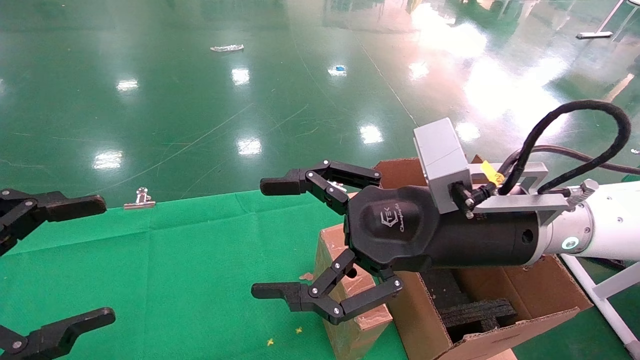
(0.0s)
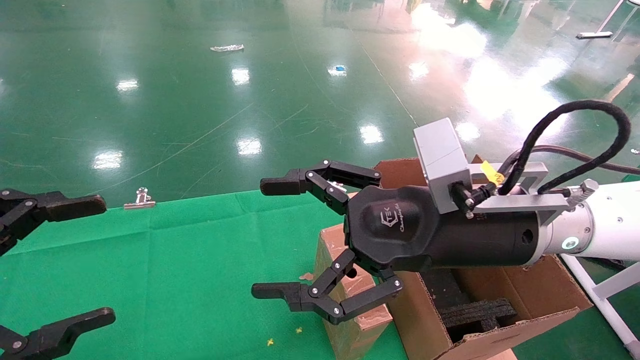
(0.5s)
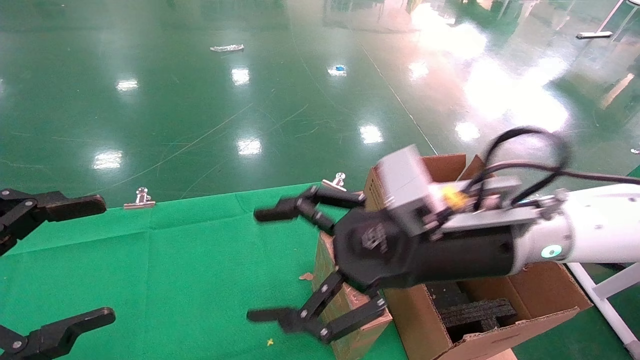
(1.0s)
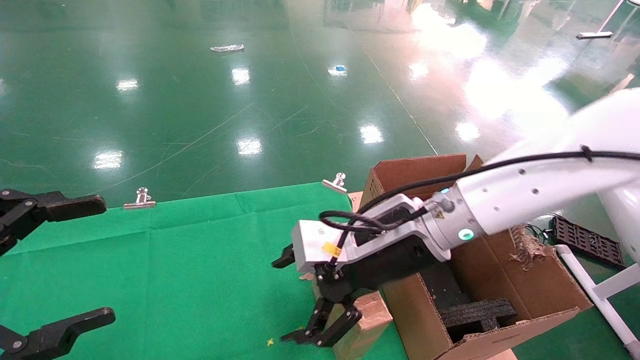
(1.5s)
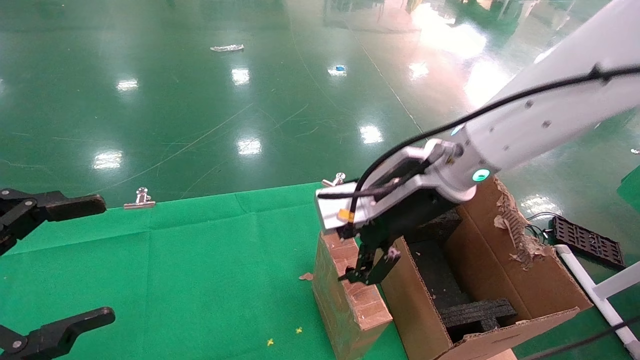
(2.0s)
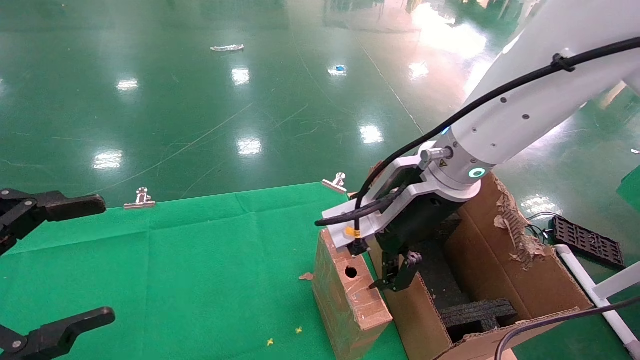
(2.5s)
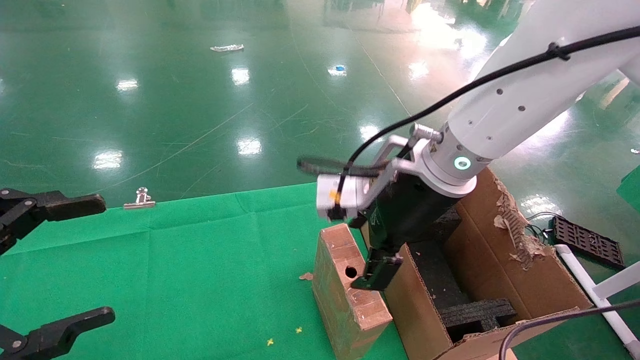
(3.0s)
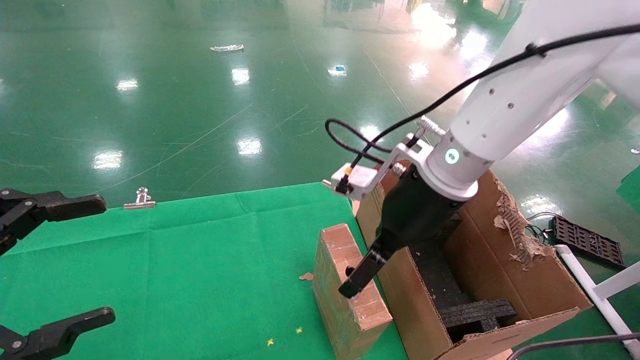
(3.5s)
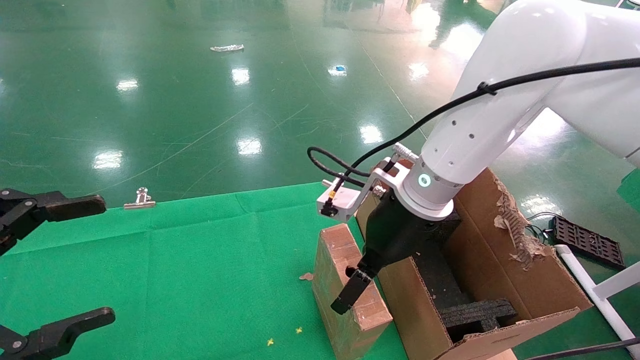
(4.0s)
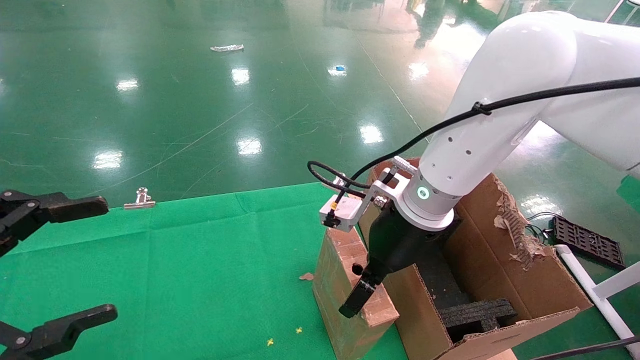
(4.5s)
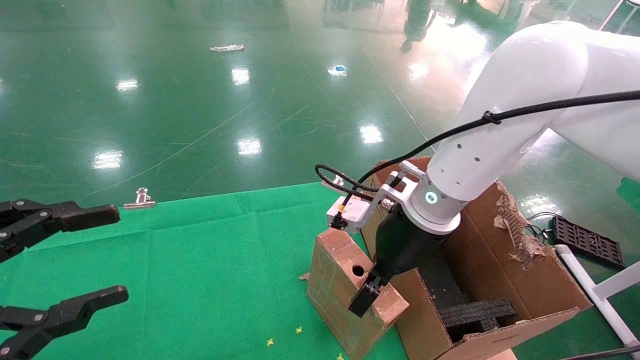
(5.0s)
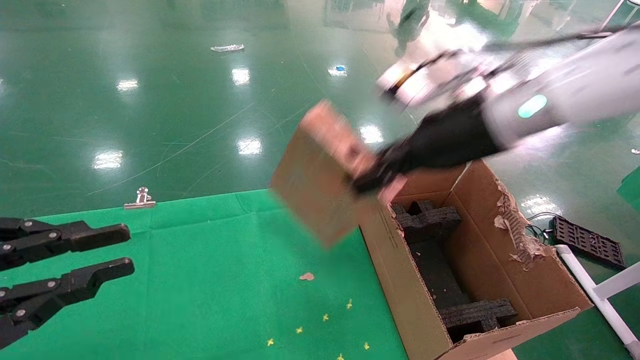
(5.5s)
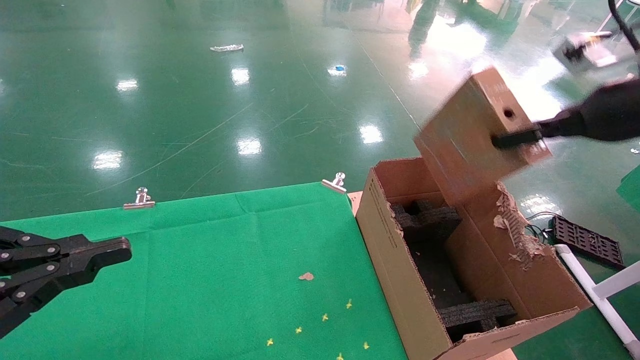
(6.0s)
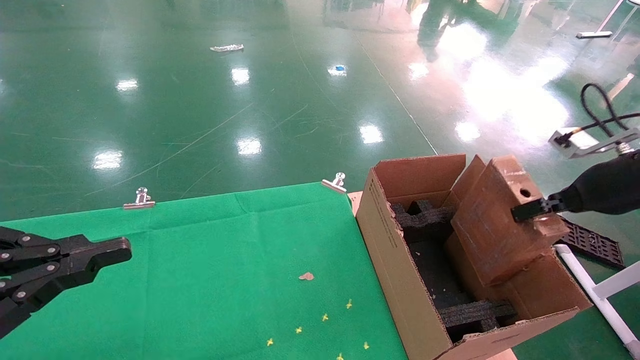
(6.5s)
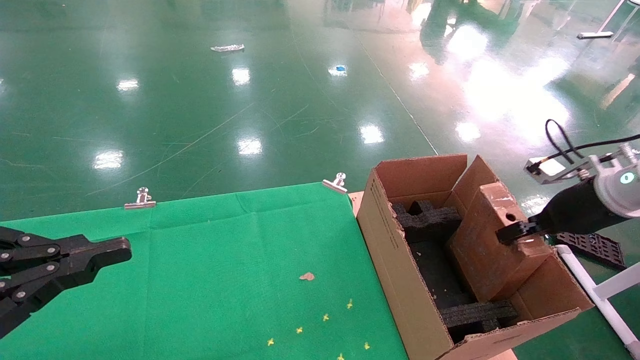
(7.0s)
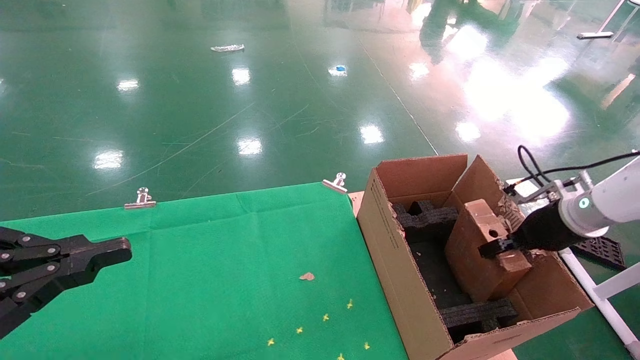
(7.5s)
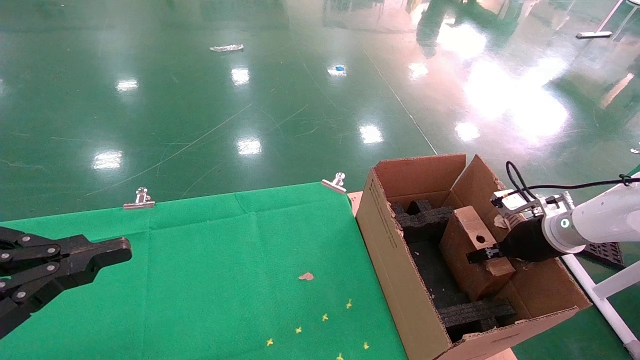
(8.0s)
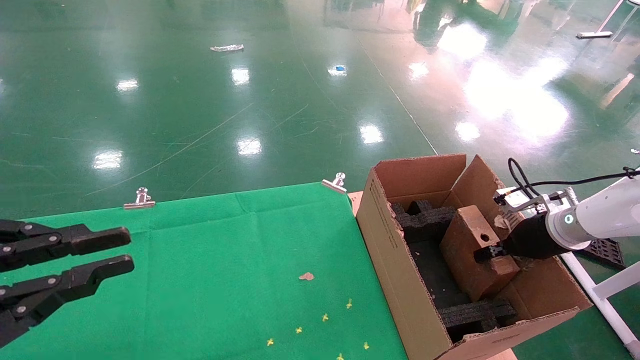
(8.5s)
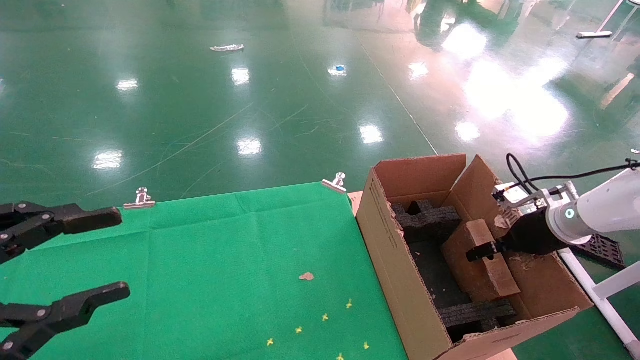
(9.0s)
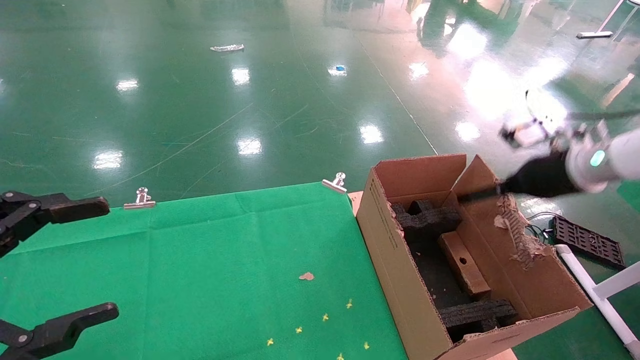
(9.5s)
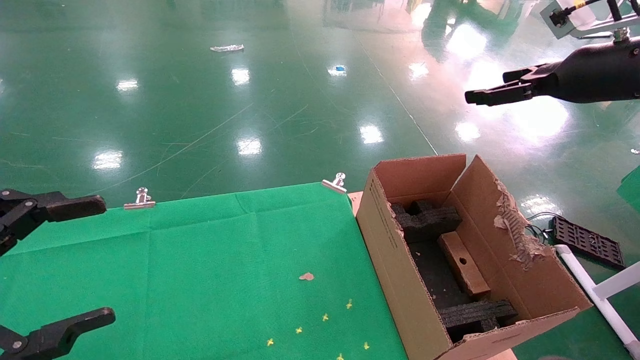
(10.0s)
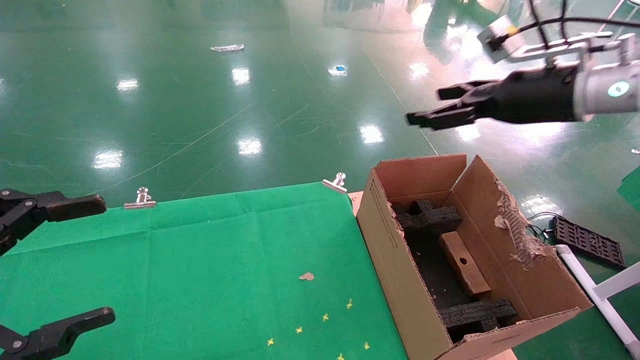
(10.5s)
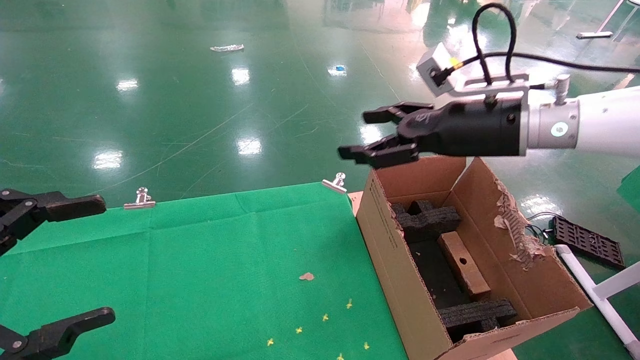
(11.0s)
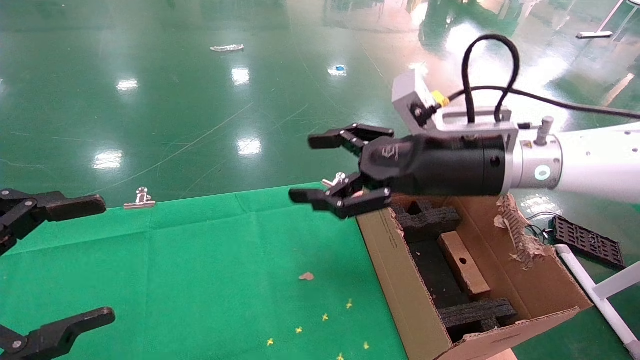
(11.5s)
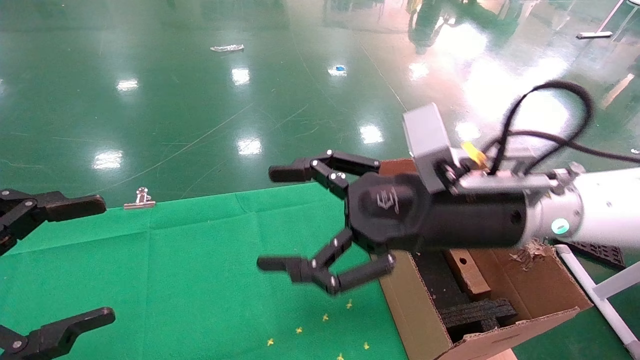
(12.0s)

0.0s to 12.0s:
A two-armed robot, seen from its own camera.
Task of the whole recording: using a robotic arm to pick up a cardboard box and palace it the carton.
Step, 1.0s to 4.5s: Pick up the mouse and the power cord paper box.
Step, 5.0s to 8.5s: Place the mouse and the power cord paper box into the container.
0.0s to 2.0s: The right gripper goes approximately 5 cm forward.
4.0s to 6.0s: The left gripper closes its fingers. Meanwhile the right gripper travels to the right by about 25 cm, and closes.
6.0s to 8.0s: The right gripper shifts roughly 25 cm downward and forward.
8.0s to 10.0s: The right gripper heads upward, covering approximately 25 cm, and opens. The left gripper opens its fingers.
10.0s to 12.0s: The right gripper goes some 25 cm to the left and downward.

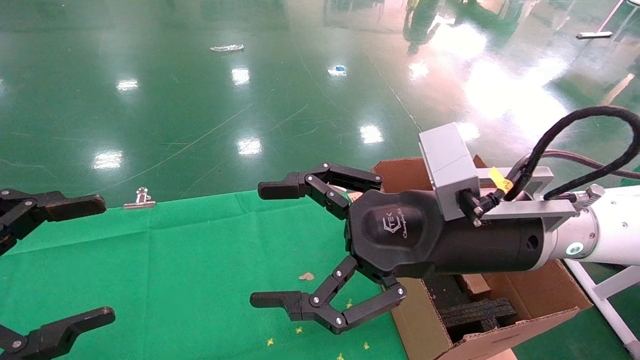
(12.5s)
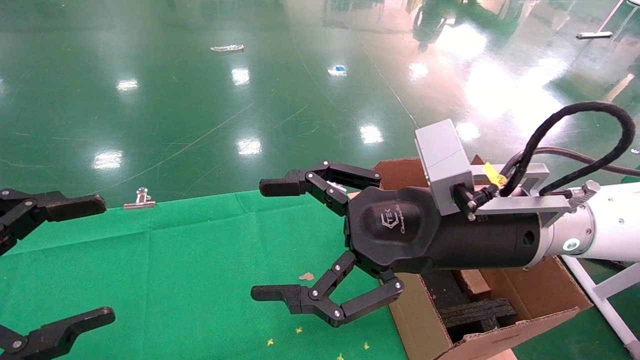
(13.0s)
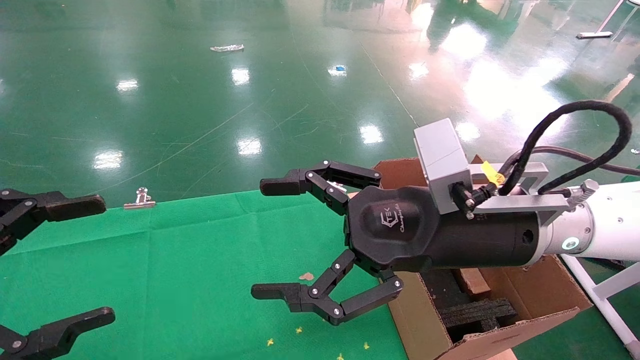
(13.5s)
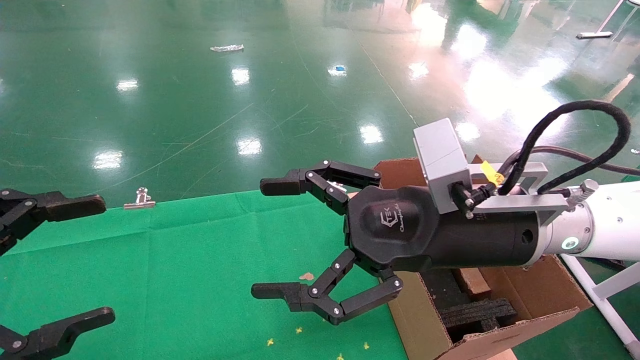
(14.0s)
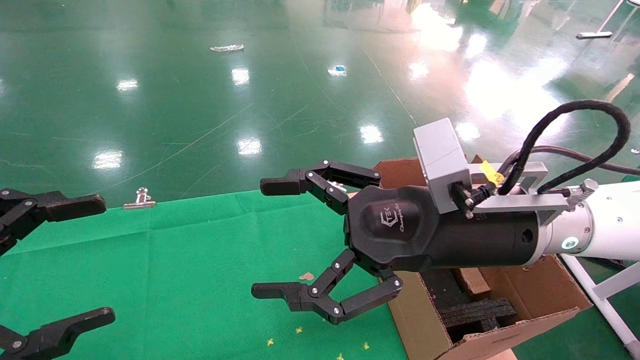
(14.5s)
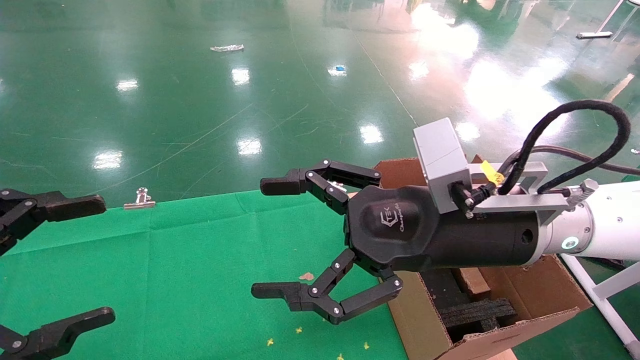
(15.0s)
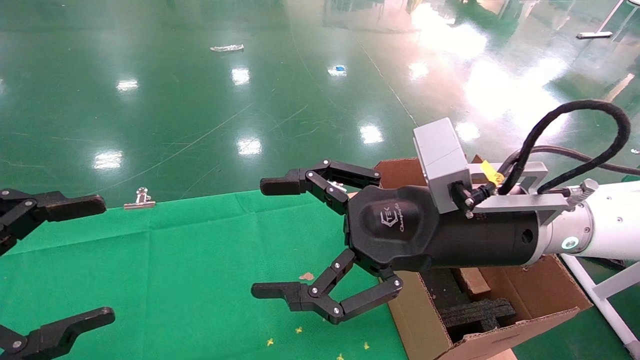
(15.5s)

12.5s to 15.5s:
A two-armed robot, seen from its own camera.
Task of the whole recording: using a robotic arm to pick up a cardboard box and palace it the carton.
12.5s to 15.5s: Neither gripper changes place.
